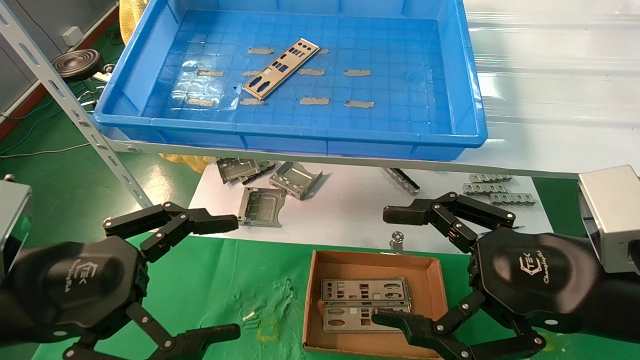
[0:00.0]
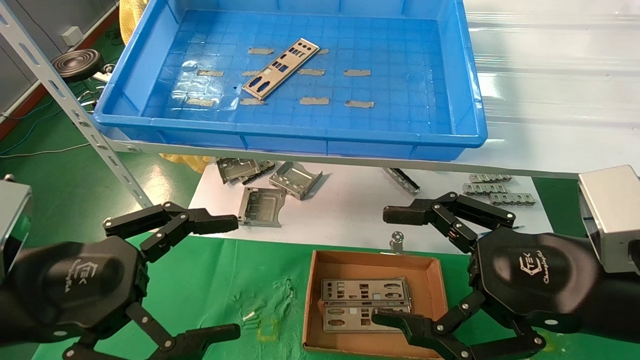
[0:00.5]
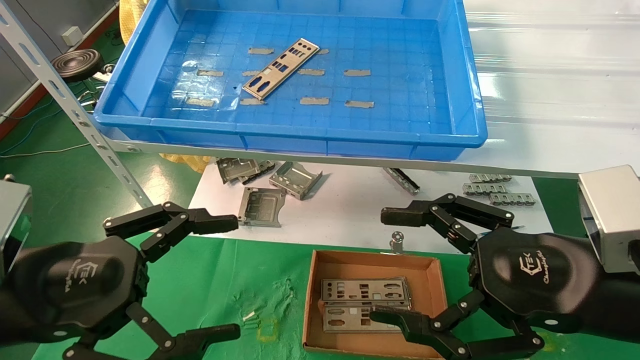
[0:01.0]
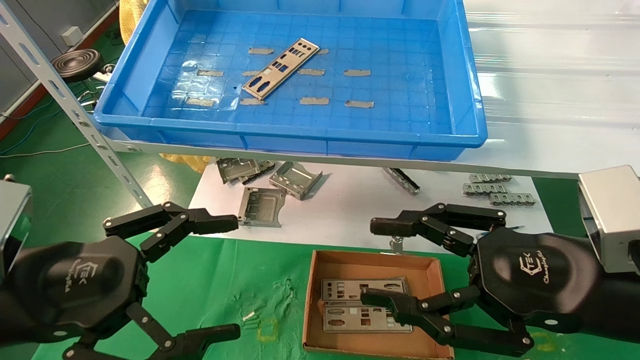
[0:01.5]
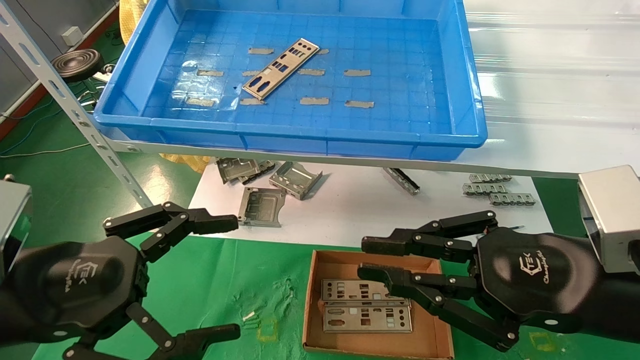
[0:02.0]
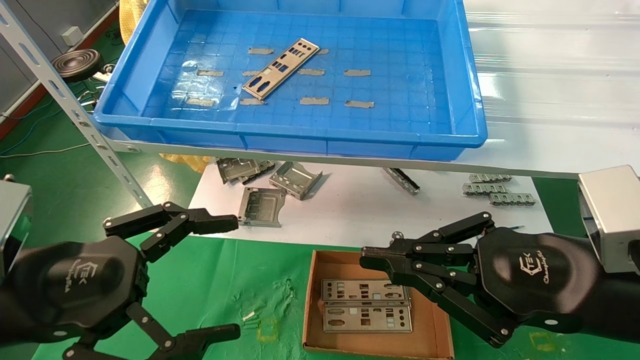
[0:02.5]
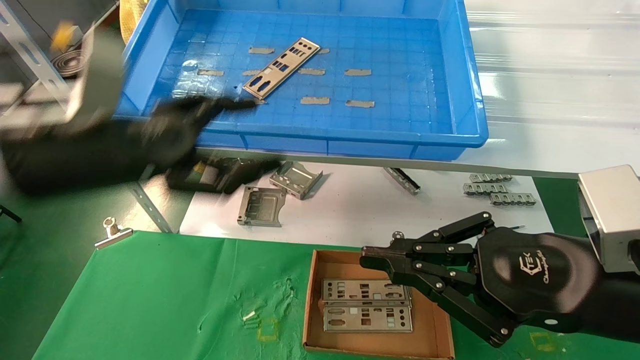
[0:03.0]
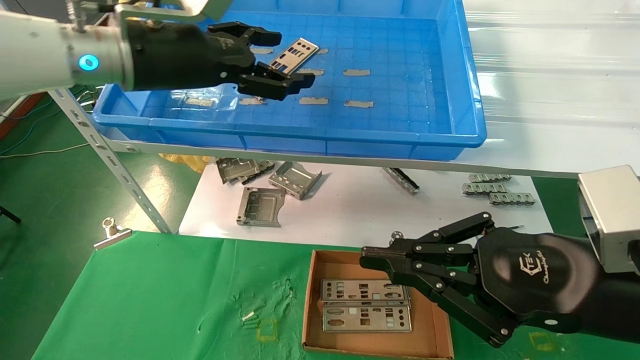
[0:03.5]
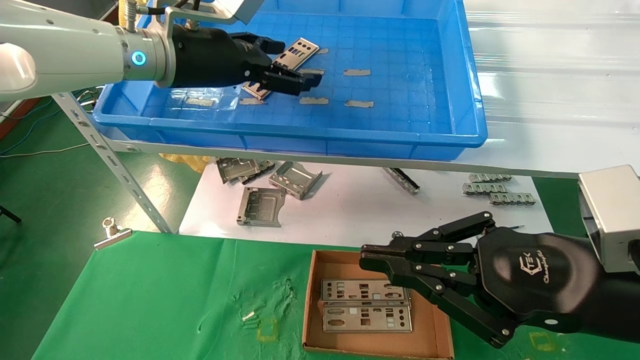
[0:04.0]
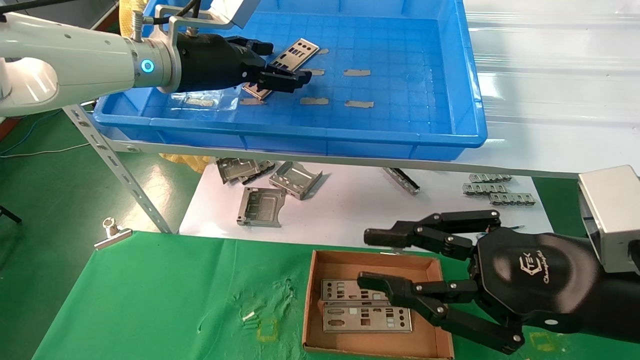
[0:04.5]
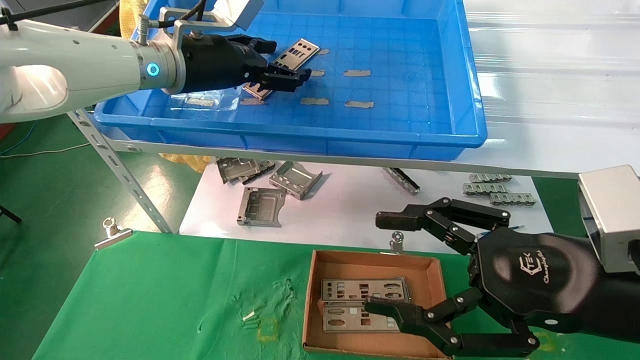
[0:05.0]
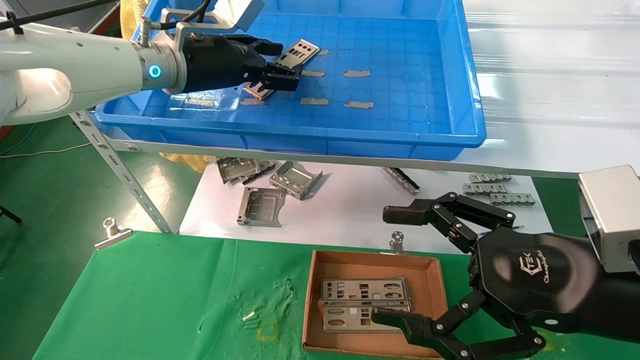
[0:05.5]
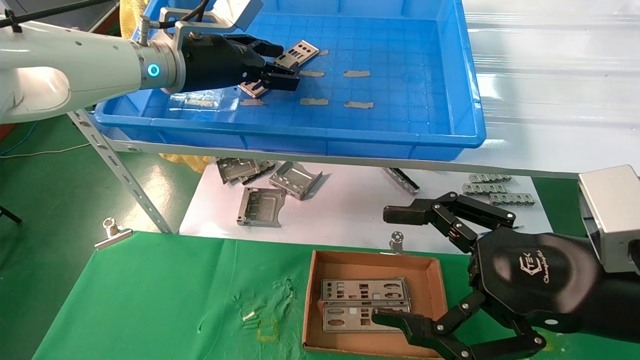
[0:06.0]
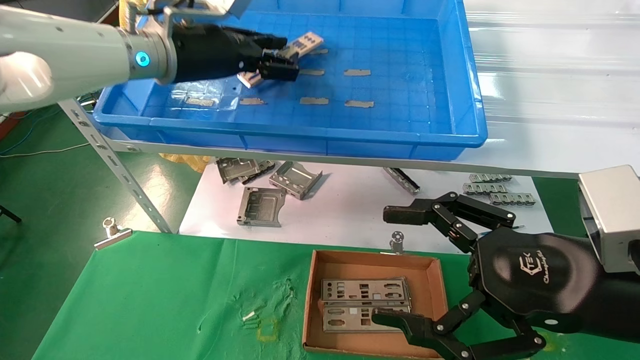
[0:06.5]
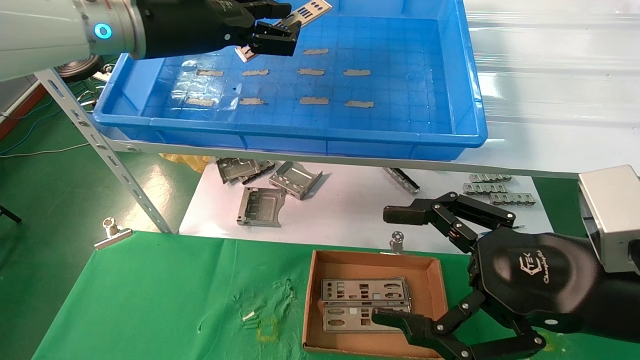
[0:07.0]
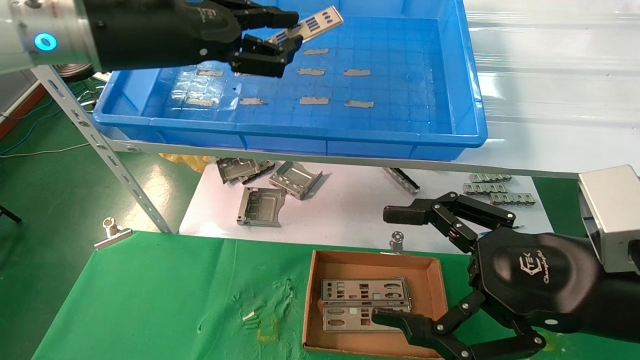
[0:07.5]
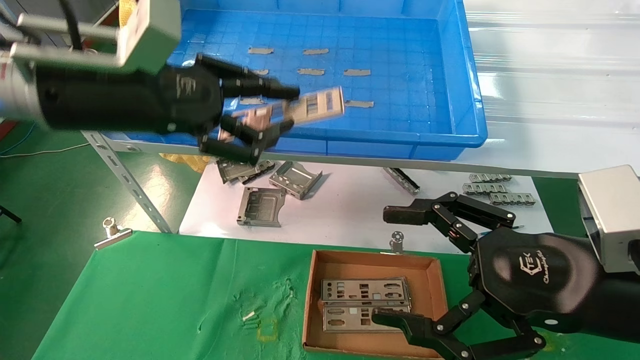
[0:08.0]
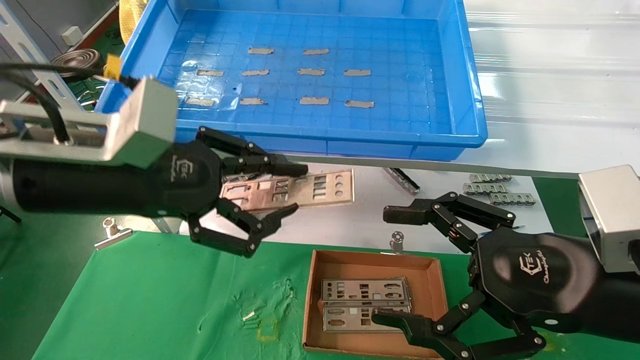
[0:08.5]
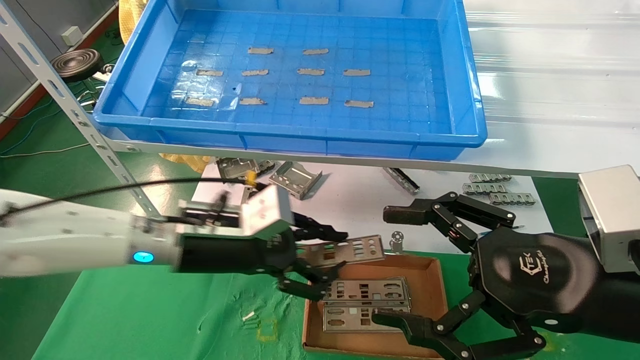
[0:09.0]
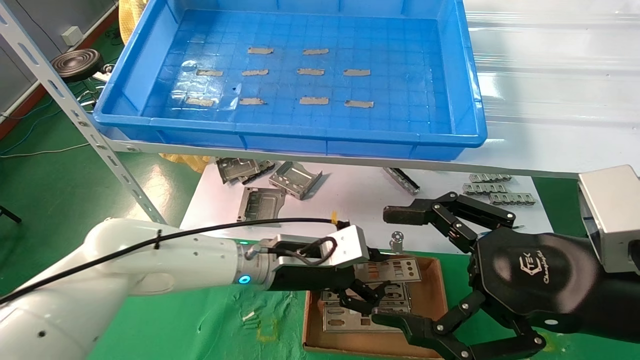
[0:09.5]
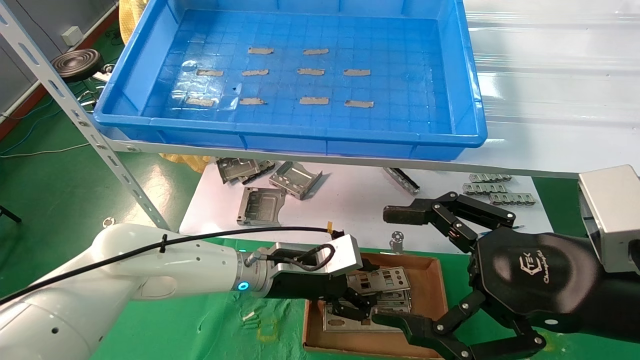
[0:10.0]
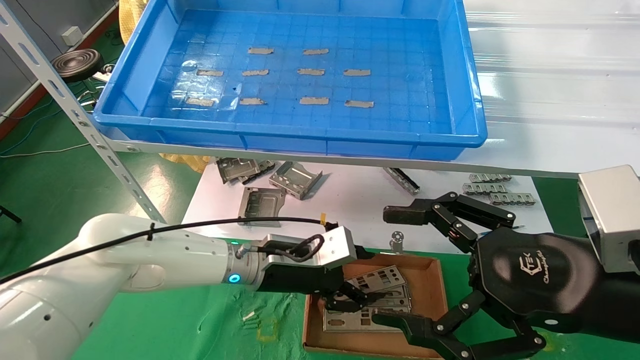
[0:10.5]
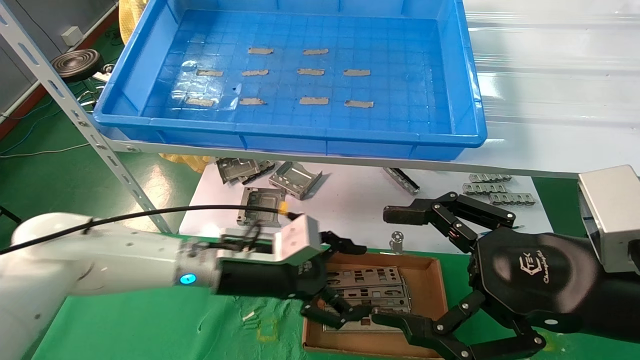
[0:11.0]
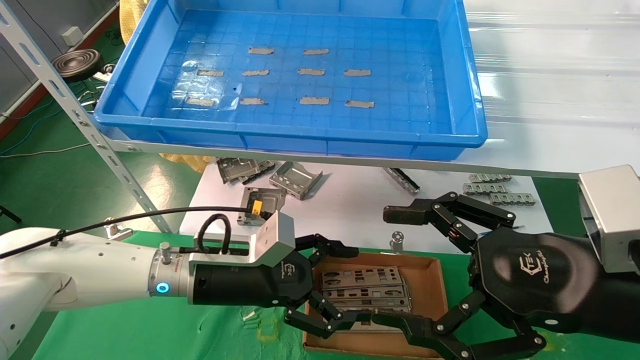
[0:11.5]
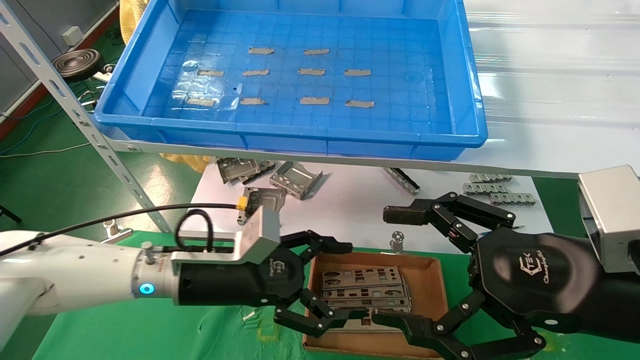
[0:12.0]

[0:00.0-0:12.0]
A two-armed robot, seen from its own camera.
Task of the whole recording: pick up the parts on the tray and put them in the cardboard box.
Step, 0:03.0 to 0:05.5: Pick up the IO bracket from the container box.
Step, 0:06.0 to 0:10.5: Place the IO bracket into the ingredient slot.
0:00.0 to 0:02.0: The right gripper closes up.
0:02.0 to 0:04.0: The left gripper is displaced forward, upward and to the right by some 30 cm.
0:04.0 to 0:06.0: The left gripper closes its fingers, while the right gripper opens.
0:06.0 to 0:08.0: The left gripper shifts some 15 cm backward and to the left.
0:08.0 to 0:10.0: The left gripper shifts roughly 30 cm downward and to the right.
0:10.0 to 0:12.0: The left gripper travels to the left and backward by approximately 10 cm, and opens its fingers.

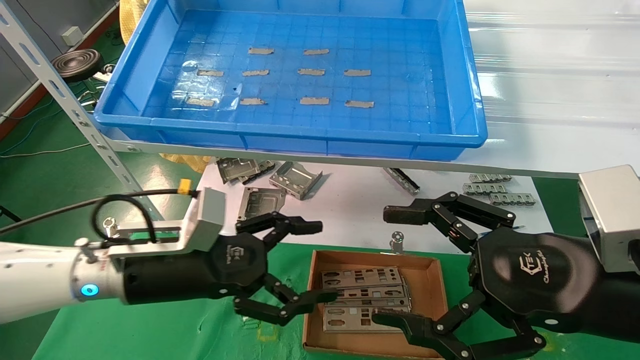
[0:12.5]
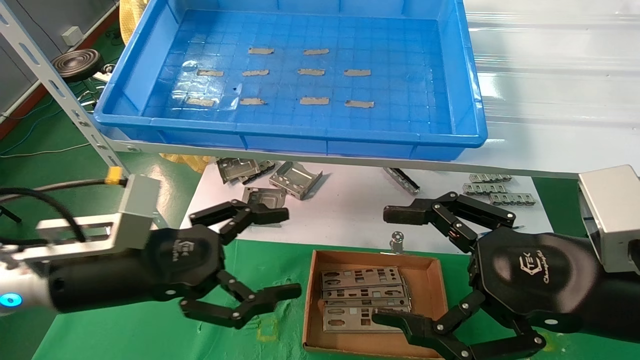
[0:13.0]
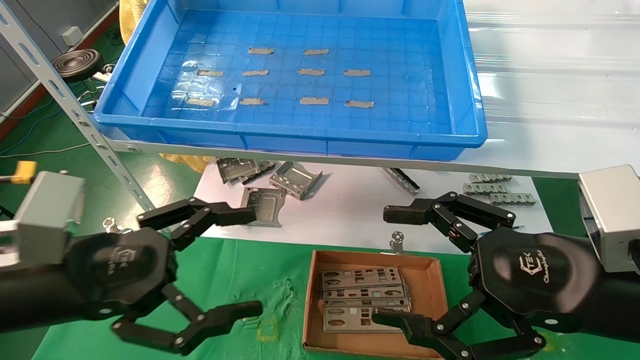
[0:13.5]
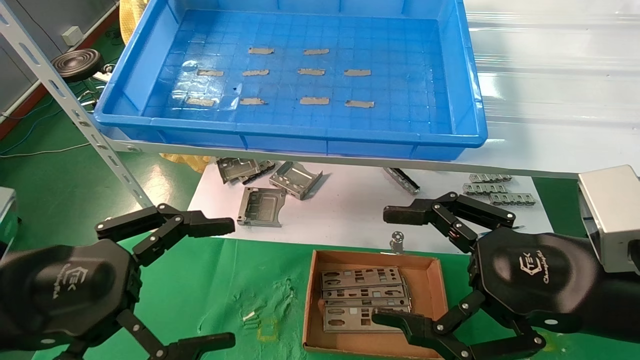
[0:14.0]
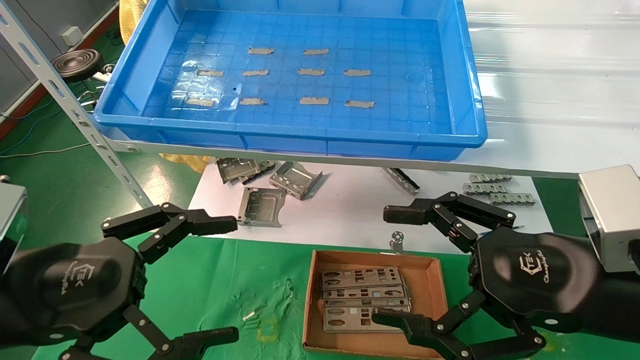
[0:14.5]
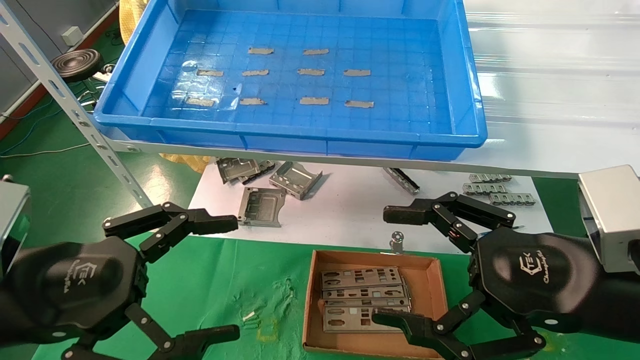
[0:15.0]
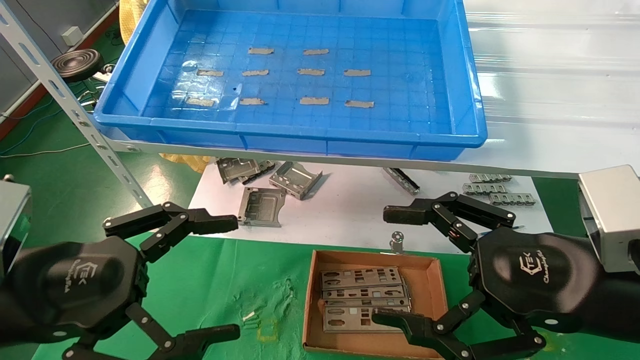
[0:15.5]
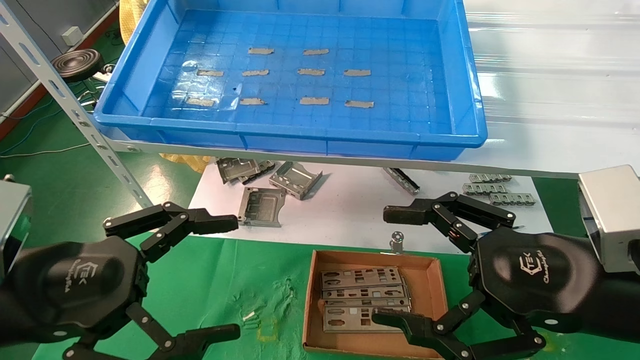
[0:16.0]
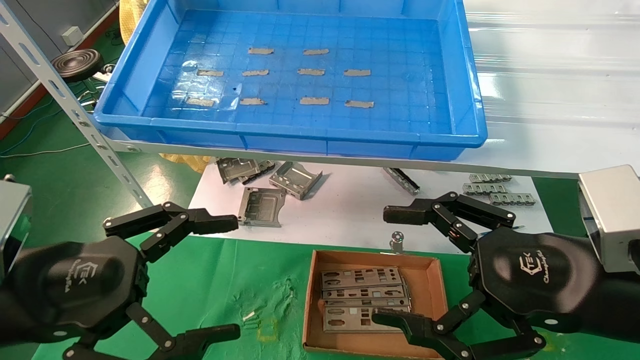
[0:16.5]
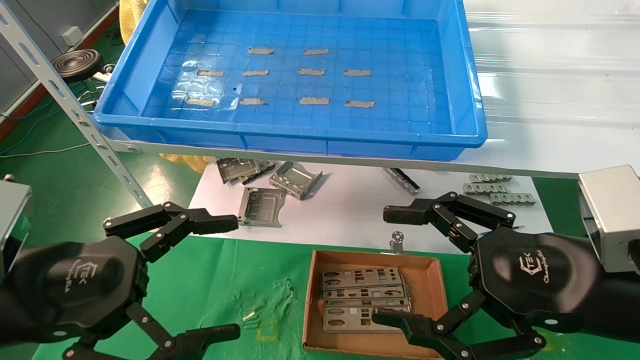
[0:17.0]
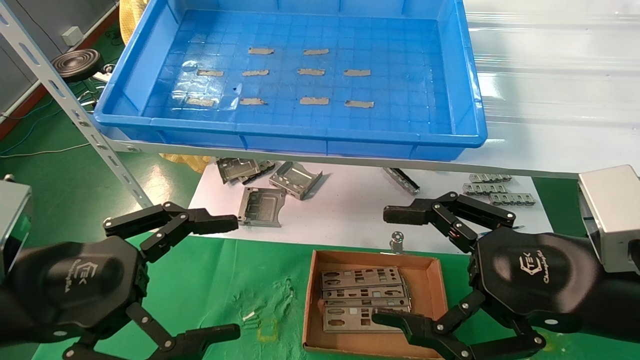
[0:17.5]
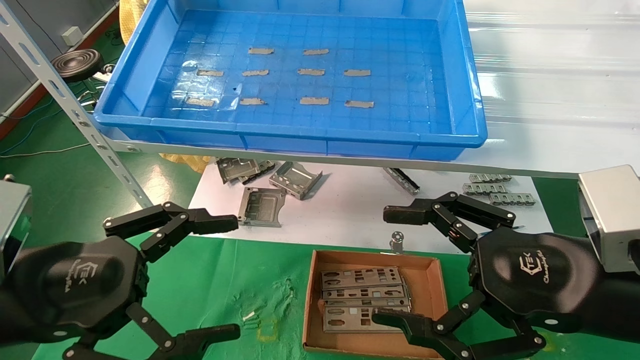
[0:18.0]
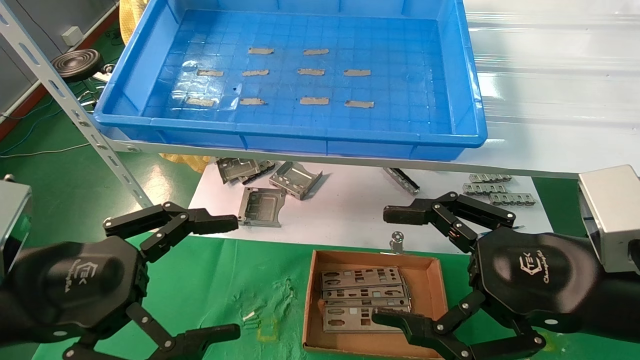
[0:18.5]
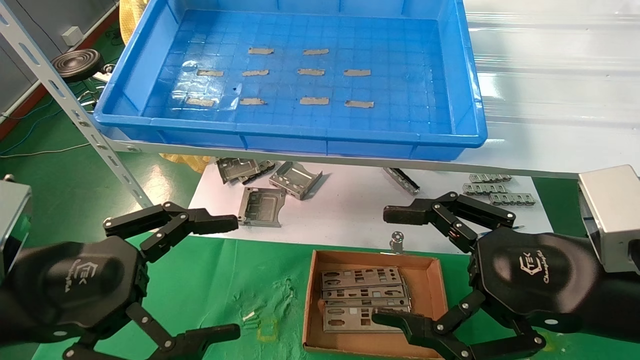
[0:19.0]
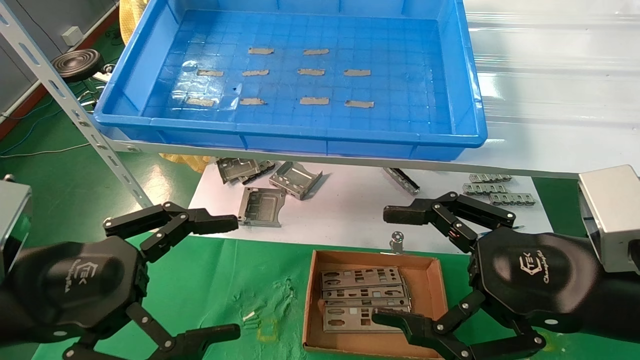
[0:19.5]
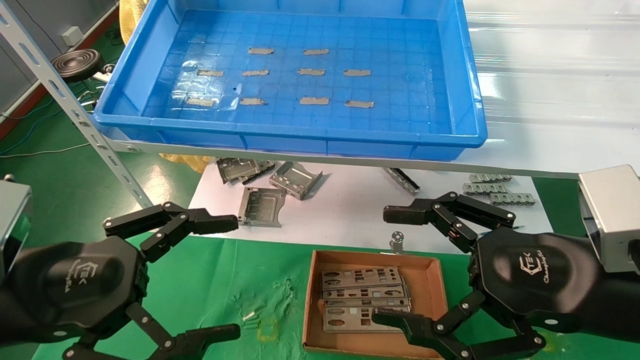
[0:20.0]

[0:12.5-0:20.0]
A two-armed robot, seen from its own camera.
Task of the whole recording: pick up the parts on the tray and put them in the cardboard box.
0:12.5 to 0:14.5: The left gripper heads backward, to the left and upward, covering some 15 cm.
0:14.5 to 0:20.0: Both grippers stay about where they are.
